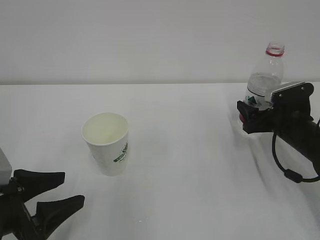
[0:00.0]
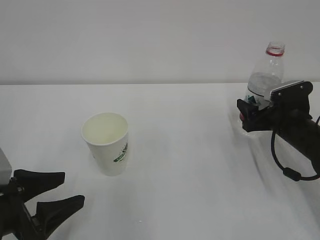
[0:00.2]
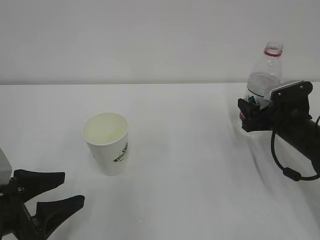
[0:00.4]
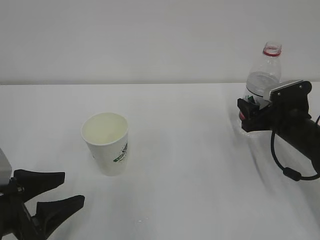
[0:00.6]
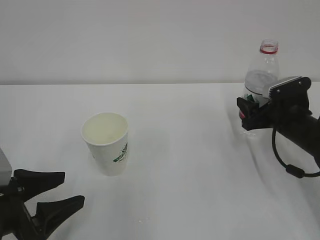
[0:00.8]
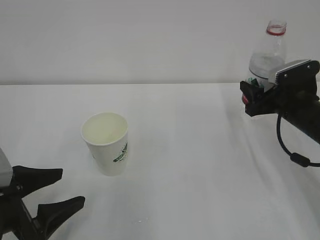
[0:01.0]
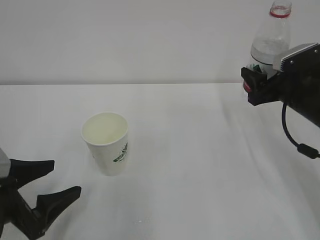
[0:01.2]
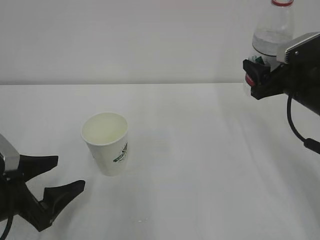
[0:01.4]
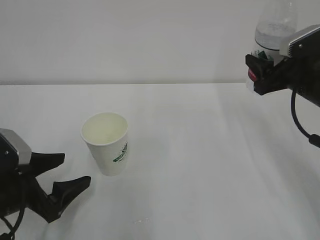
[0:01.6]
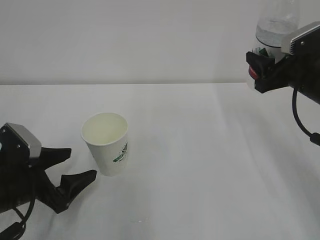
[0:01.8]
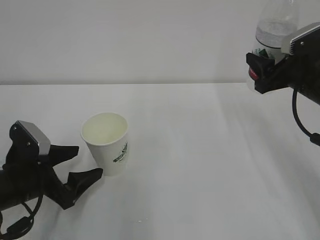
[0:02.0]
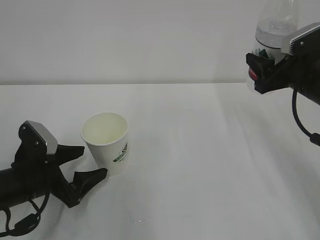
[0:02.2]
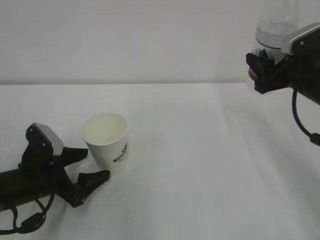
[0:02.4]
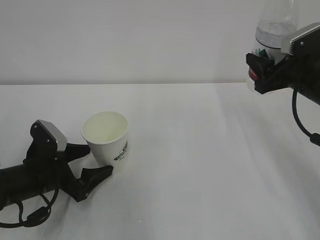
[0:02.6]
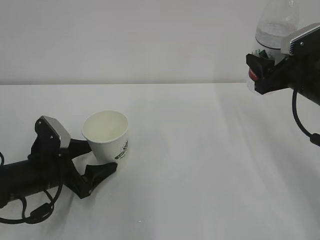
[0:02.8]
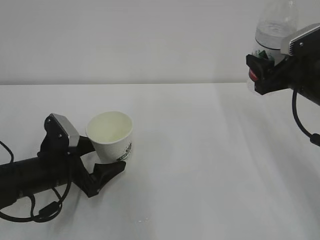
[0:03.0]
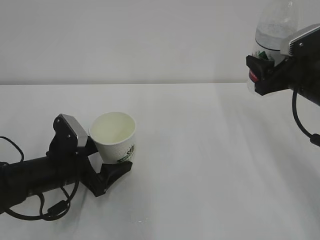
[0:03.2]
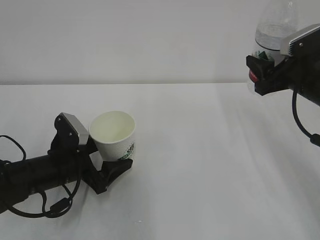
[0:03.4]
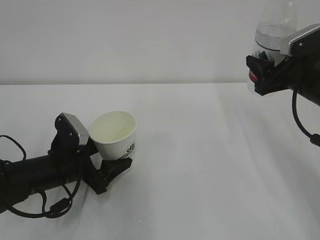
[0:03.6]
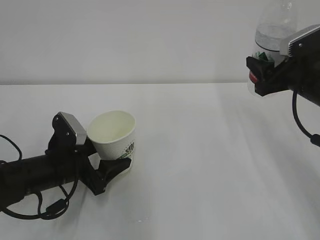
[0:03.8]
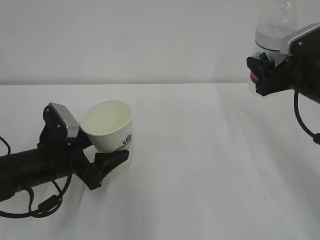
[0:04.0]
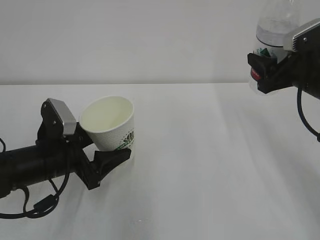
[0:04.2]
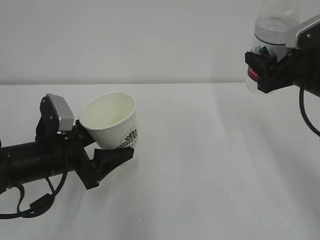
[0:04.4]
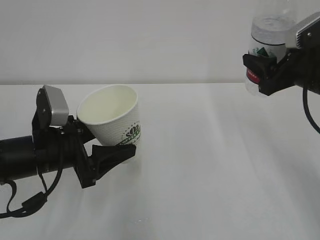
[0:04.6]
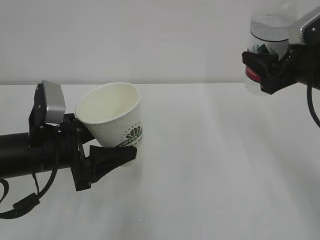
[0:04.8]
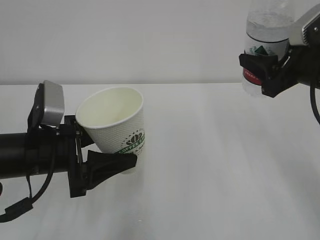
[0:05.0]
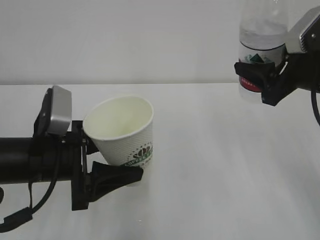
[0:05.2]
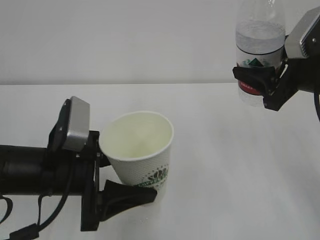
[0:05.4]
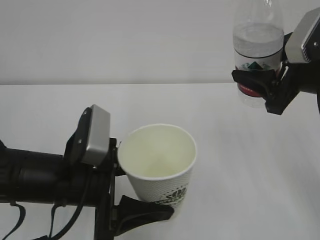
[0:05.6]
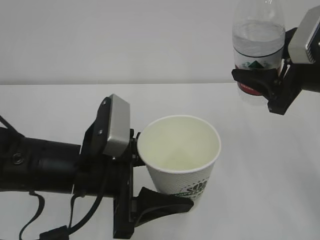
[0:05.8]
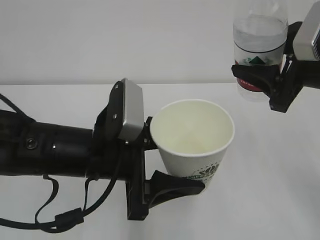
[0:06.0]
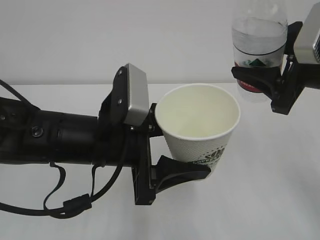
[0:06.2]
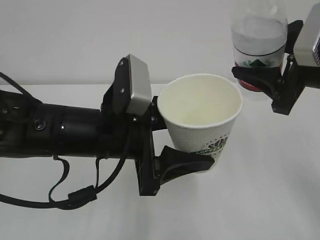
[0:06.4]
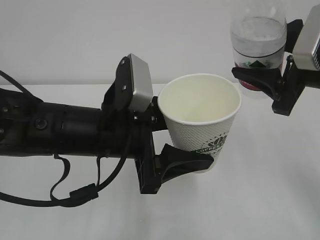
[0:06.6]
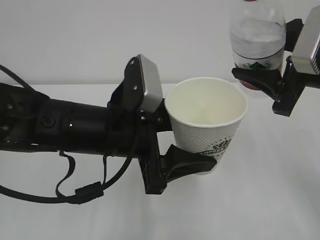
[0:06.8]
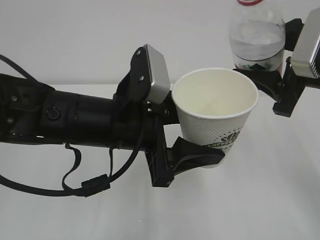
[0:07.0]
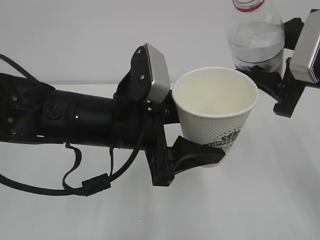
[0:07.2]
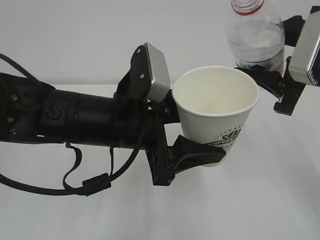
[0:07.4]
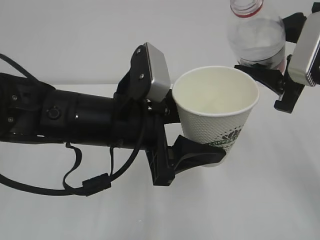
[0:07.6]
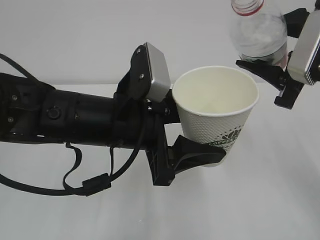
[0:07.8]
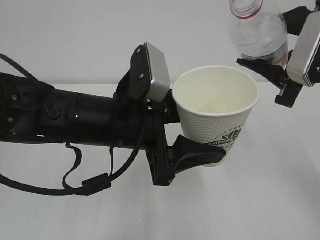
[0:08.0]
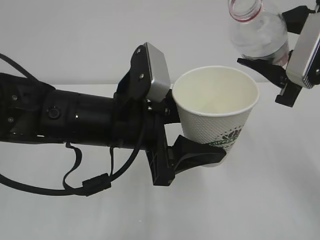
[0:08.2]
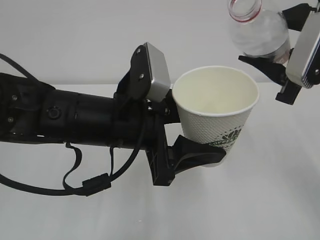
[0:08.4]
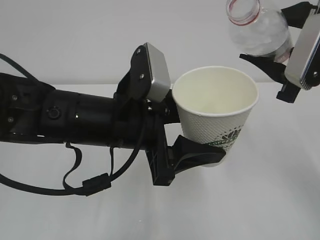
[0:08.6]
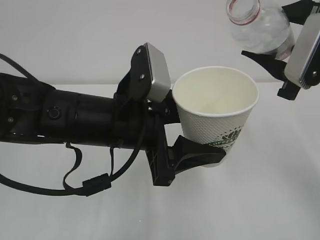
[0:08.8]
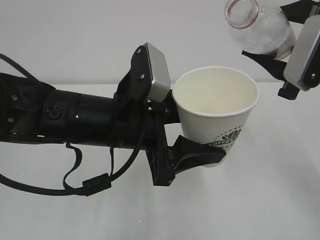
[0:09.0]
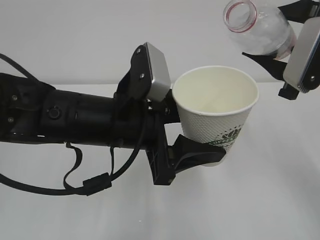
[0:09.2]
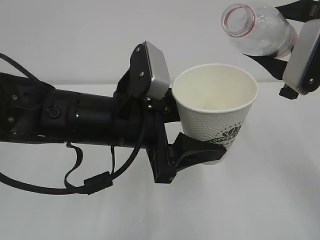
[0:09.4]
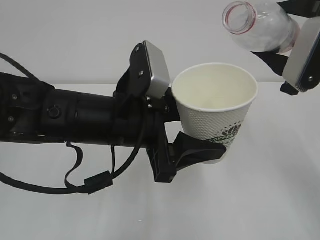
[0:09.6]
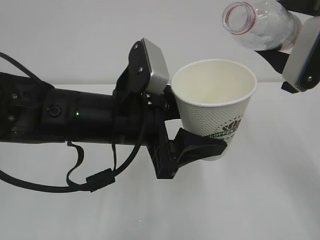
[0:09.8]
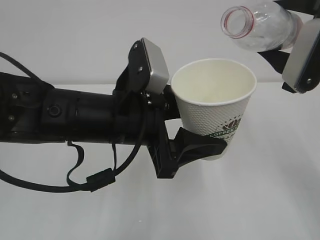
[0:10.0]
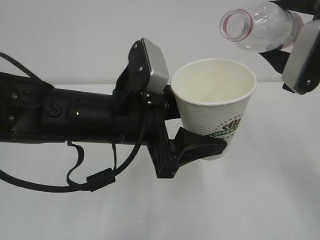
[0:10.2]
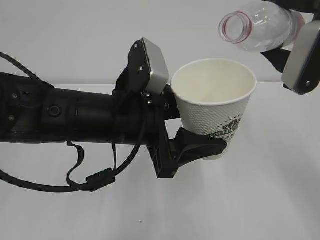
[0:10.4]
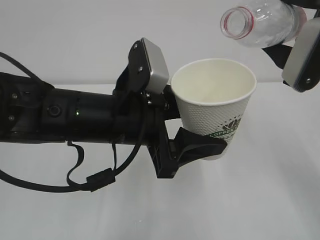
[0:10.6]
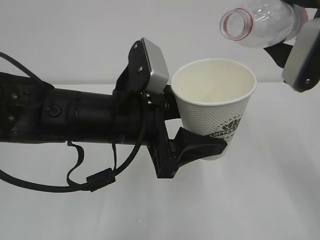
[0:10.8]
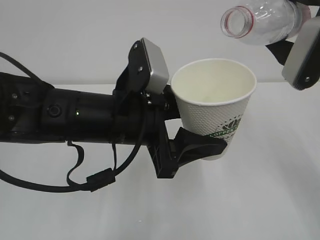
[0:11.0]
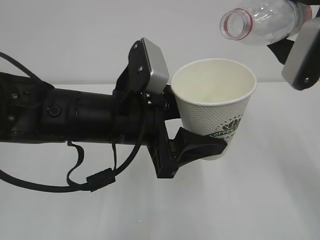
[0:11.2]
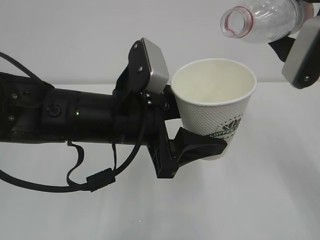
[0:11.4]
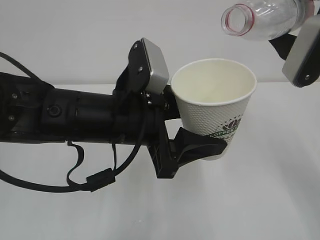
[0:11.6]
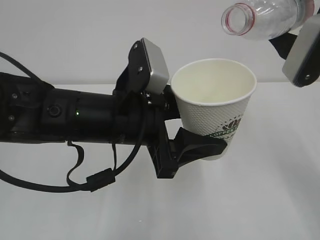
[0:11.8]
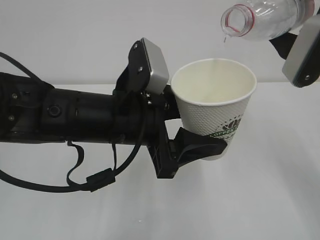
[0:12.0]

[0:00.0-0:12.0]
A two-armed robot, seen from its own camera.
0:00.0 to 0:01.6: The left gripper opens its fingers, while the right gripper travels upward by some 10 cm, and closes.
0:01.6 to 0:03.0: The left gripper goes approximately 5 cm forward.
0:03.0 to 0:04.4: The left gripper ends up some 5 cm from where it was, and closes its fingers.
0:04.4 to 0:06.0: The right gripper goes some 5 cm backward; the left gripper heads to the right, upward and backward, covering some 15 cm.
0:07.6 to 0:09.0: There are only small adjustments of the grippers.
0:09.0 to 0:10.4: There are only small adjustments of the grippers.
0:10.4 to 0:12.0: The grippers move only a little.

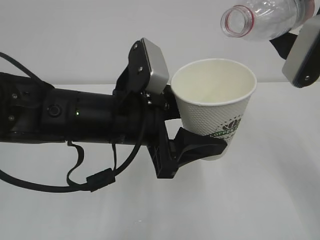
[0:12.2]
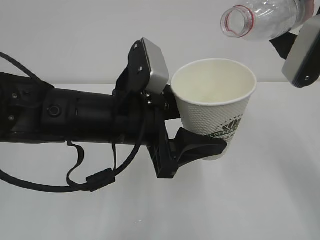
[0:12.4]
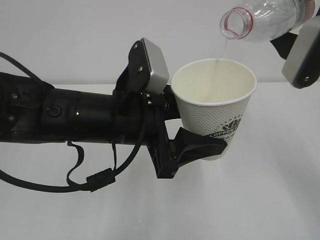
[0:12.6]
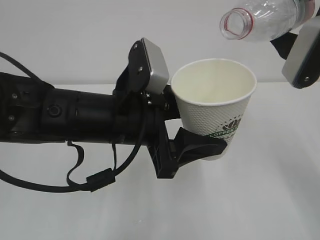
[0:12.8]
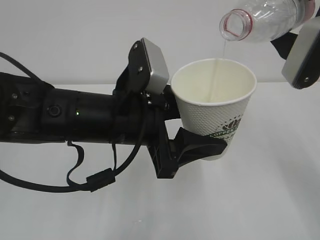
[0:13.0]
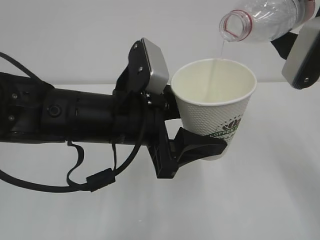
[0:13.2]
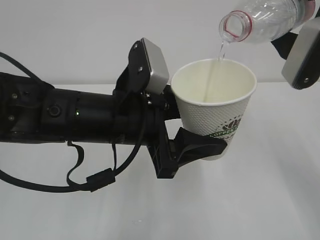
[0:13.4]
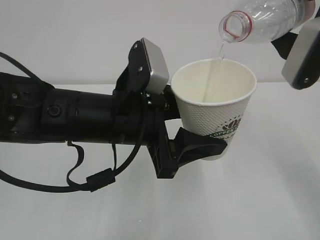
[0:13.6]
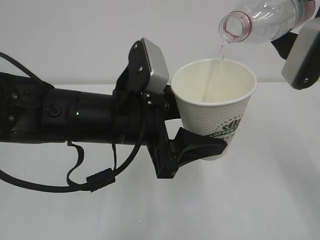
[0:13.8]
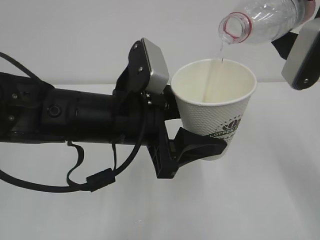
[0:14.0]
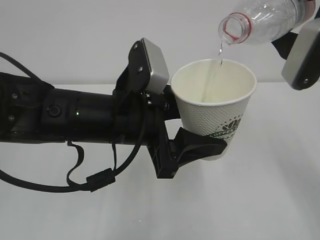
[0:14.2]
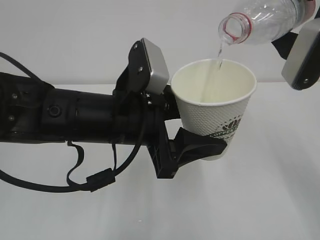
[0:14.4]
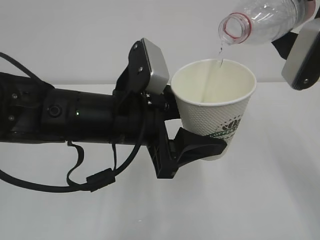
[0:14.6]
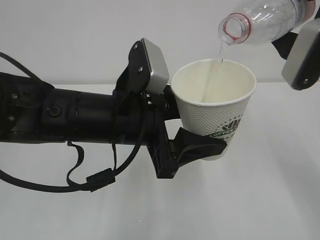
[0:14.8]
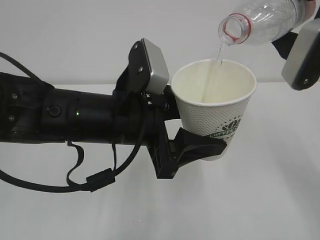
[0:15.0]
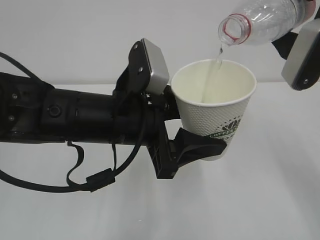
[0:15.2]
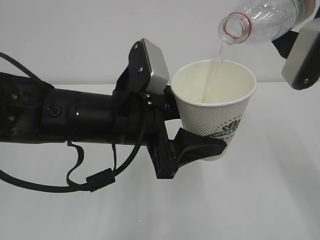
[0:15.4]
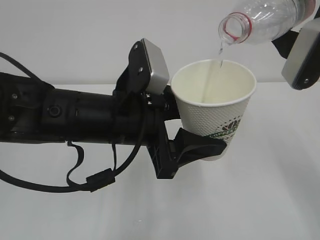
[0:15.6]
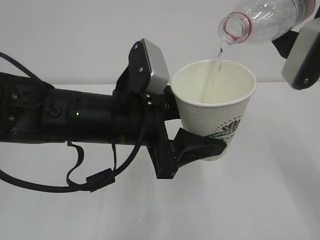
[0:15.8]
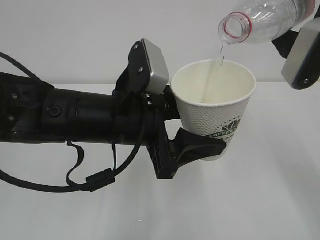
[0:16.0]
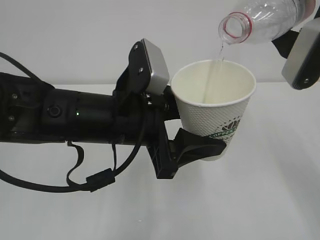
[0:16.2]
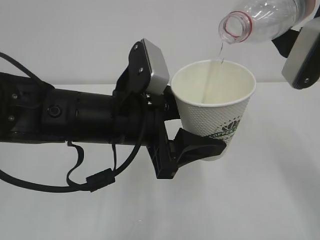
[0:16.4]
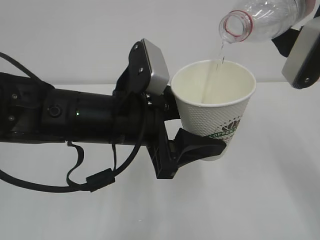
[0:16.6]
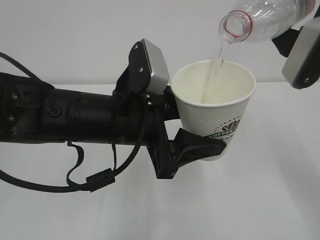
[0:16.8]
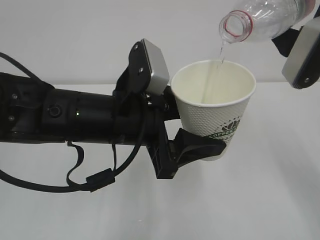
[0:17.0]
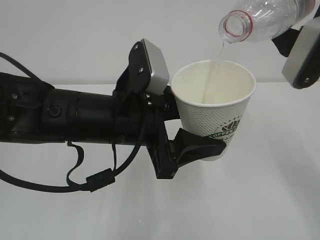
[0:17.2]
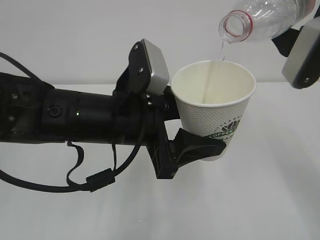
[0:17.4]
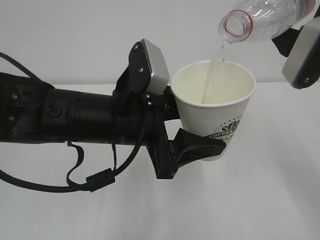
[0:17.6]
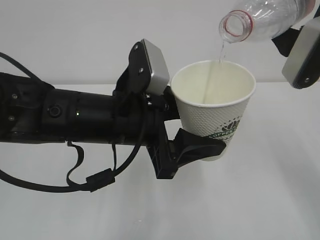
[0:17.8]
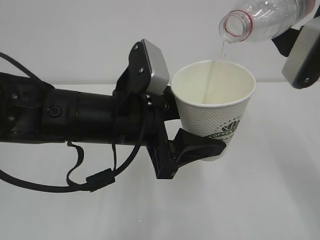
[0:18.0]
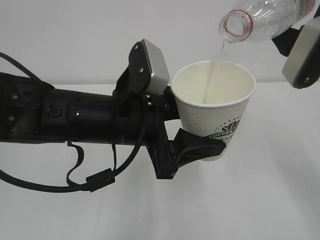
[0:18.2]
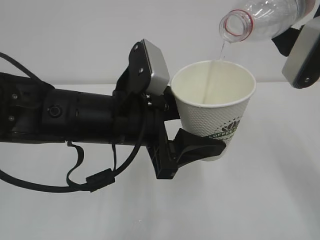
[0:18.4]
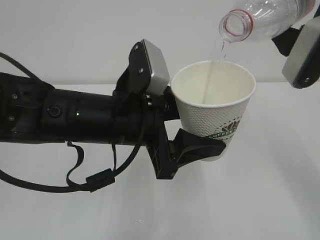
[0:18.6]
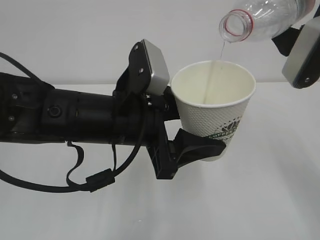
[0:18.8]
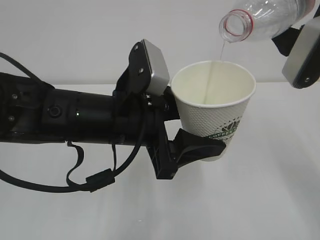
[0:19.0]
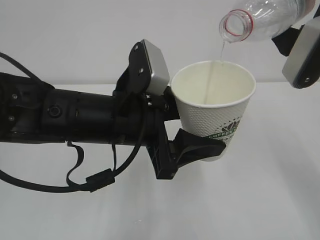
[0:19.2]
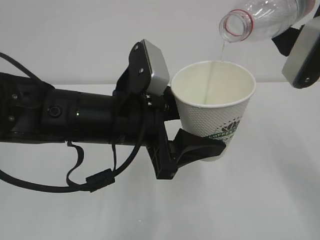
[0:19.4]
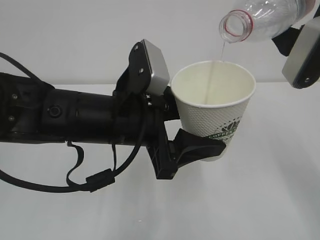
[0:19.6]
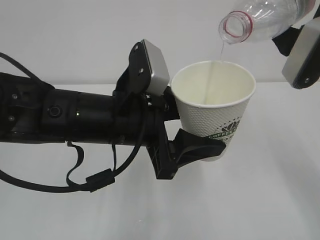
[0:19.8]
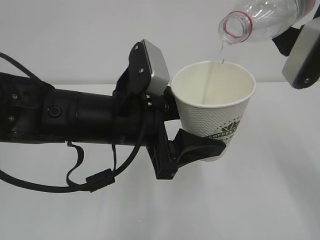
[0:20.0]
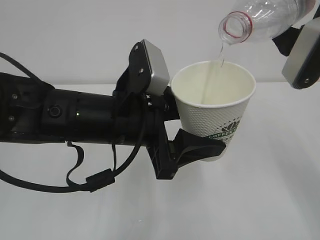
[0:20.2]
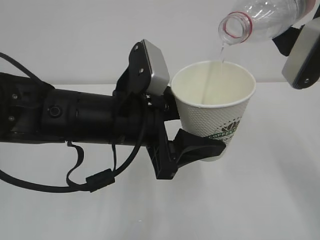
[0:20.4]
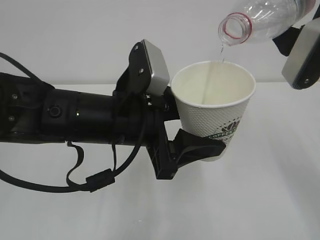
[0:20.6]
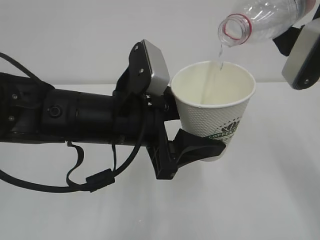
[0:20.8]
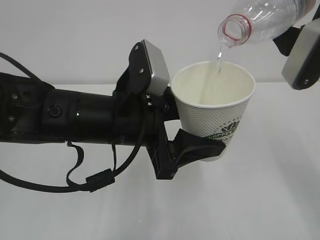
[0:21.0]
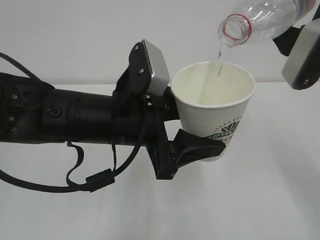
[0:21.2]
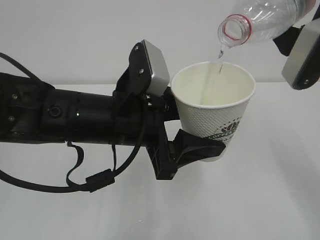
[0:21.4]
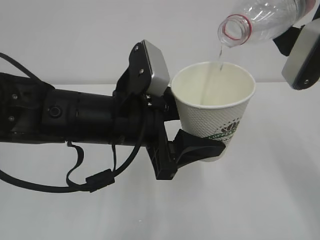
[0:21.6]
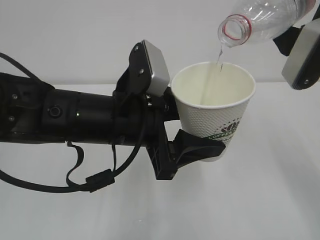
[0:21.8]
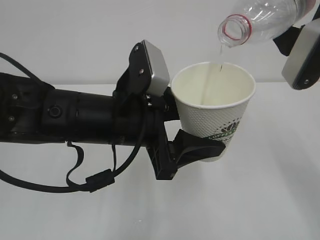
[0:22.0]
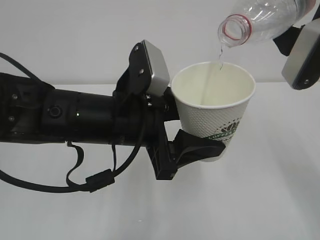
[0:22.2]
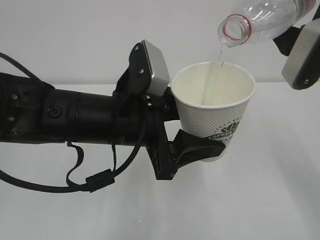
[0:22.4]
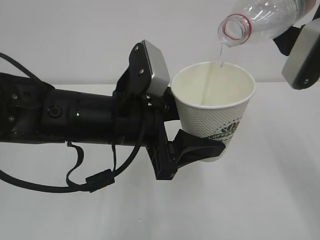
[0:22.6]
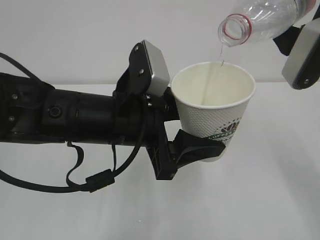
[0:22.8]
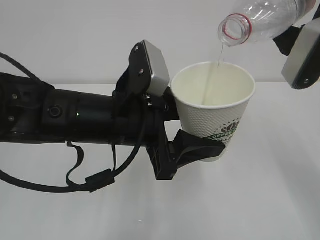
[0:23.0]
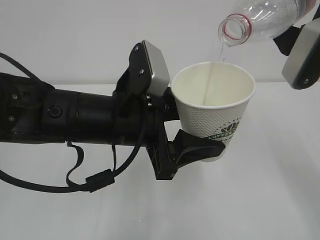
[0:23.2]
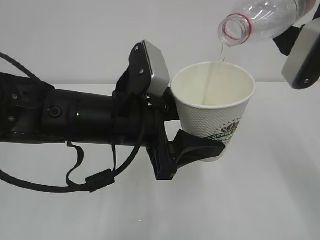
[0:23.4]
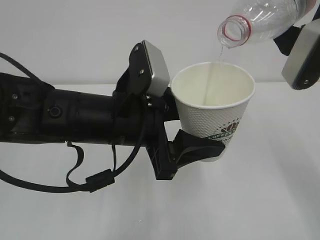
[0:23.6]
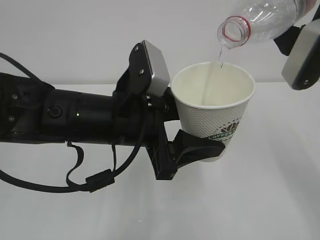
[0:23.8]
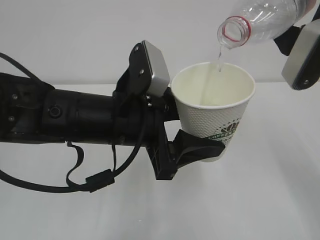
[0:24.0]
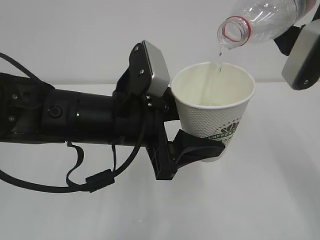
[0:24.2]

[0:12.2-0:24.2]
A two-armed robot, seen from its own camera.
0:12.2 to 0:18.2: Neither gripper changes place.
0:18.2 to 0:24.2: Both grippers stay about where they are.
